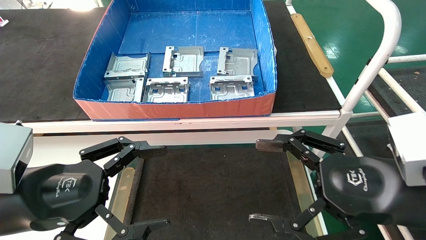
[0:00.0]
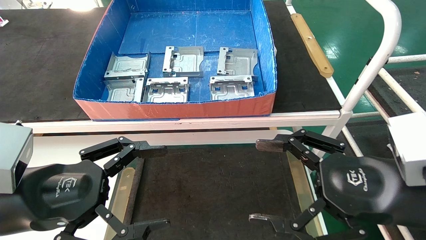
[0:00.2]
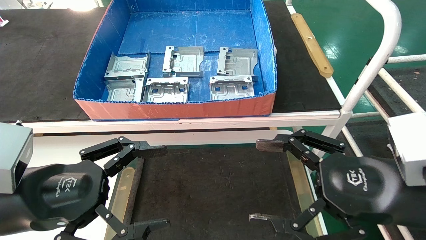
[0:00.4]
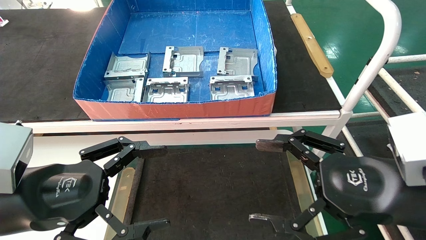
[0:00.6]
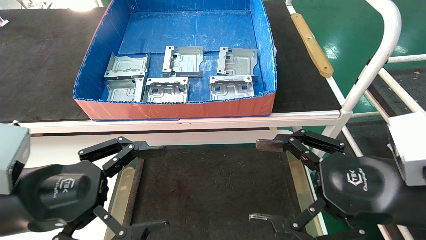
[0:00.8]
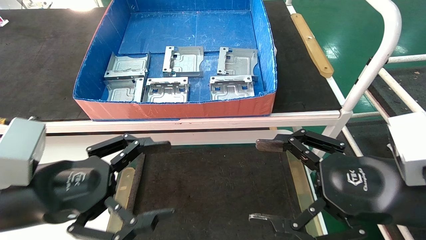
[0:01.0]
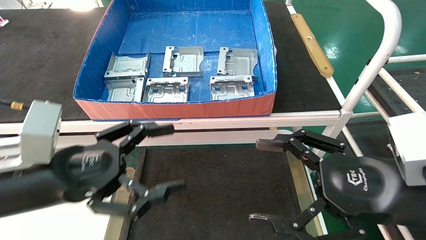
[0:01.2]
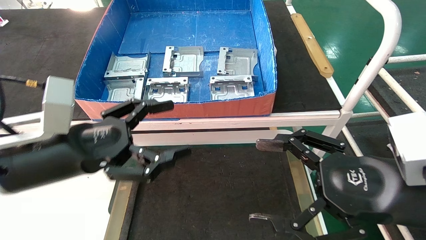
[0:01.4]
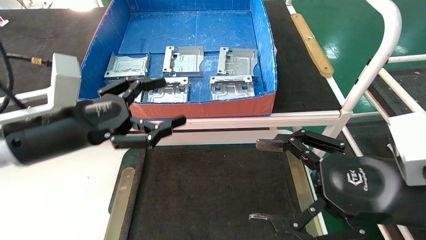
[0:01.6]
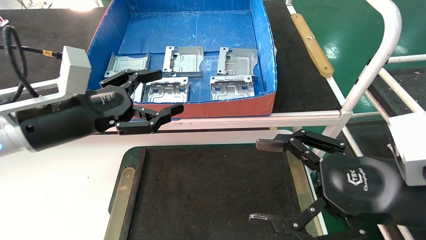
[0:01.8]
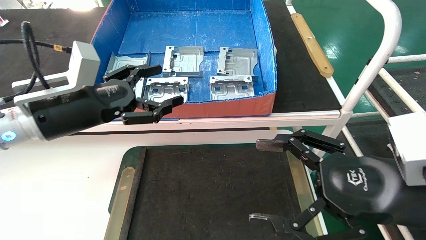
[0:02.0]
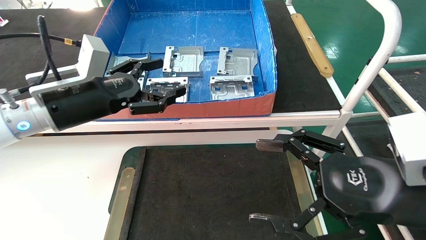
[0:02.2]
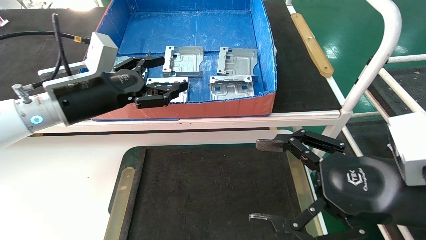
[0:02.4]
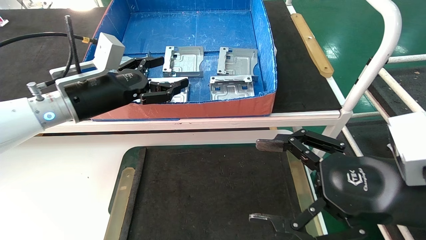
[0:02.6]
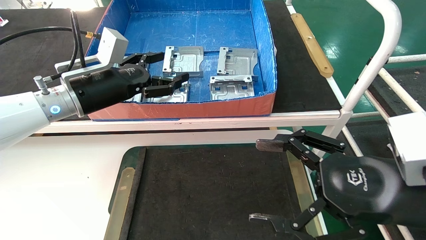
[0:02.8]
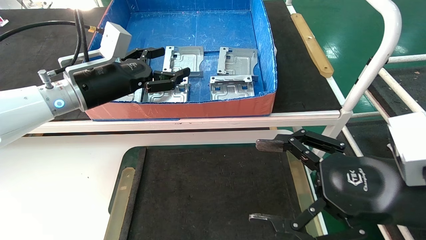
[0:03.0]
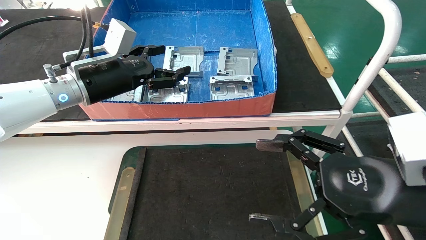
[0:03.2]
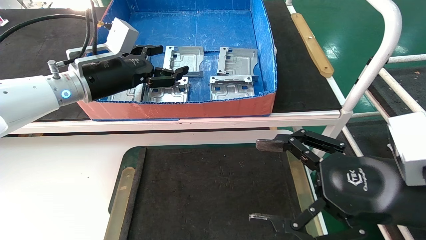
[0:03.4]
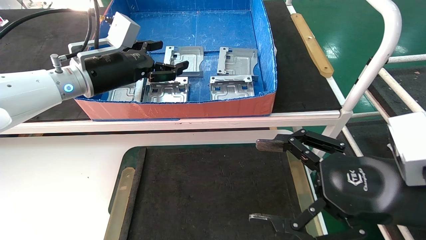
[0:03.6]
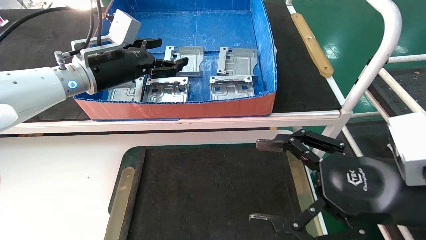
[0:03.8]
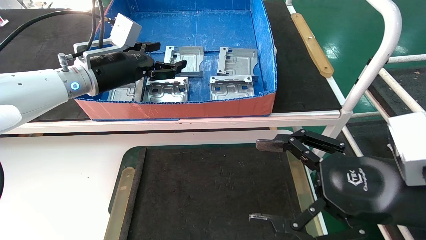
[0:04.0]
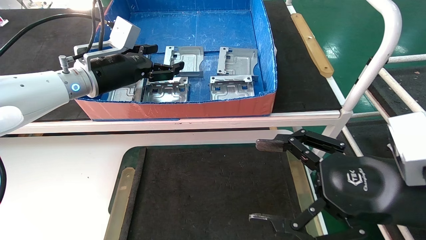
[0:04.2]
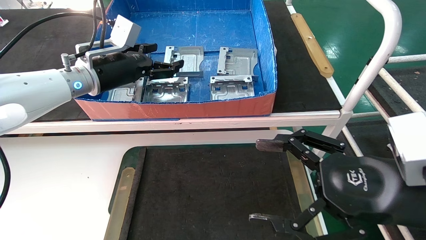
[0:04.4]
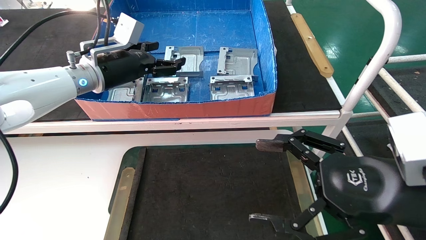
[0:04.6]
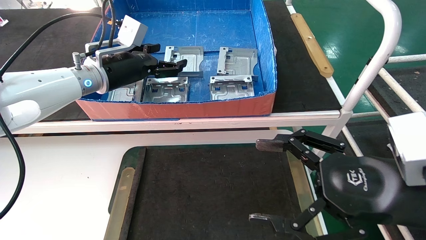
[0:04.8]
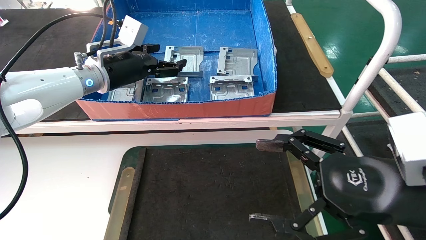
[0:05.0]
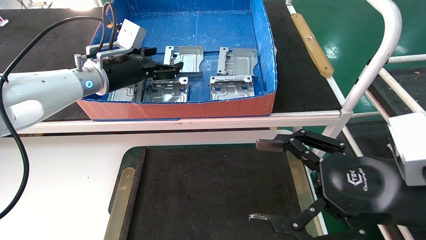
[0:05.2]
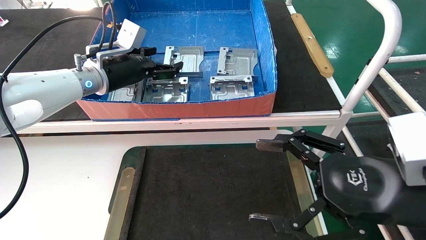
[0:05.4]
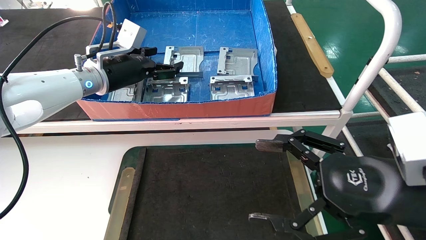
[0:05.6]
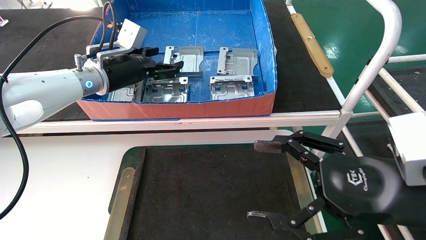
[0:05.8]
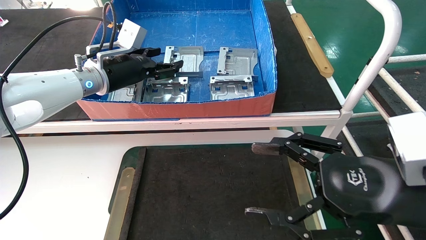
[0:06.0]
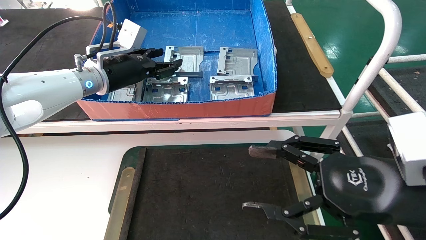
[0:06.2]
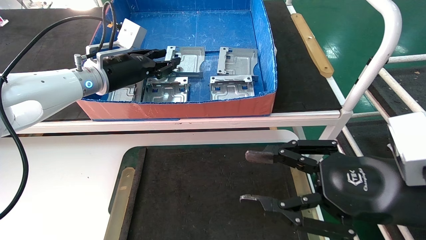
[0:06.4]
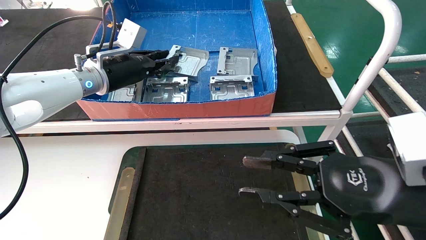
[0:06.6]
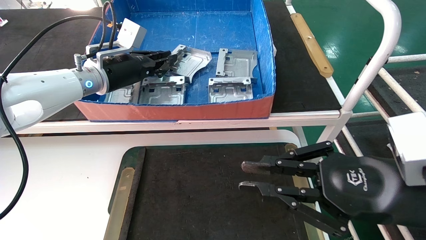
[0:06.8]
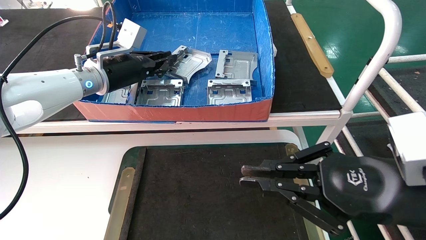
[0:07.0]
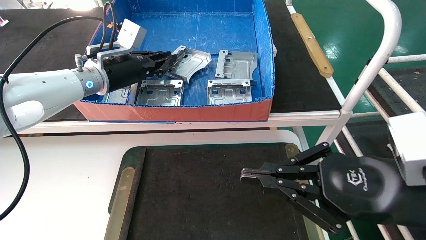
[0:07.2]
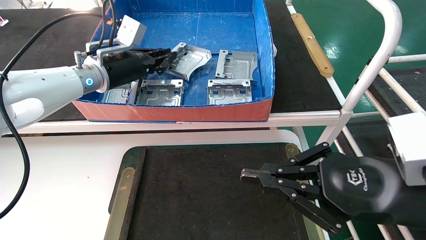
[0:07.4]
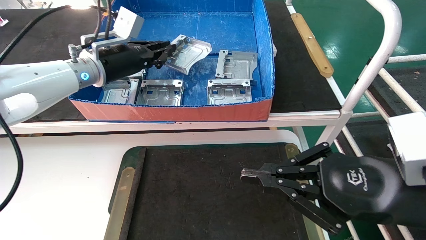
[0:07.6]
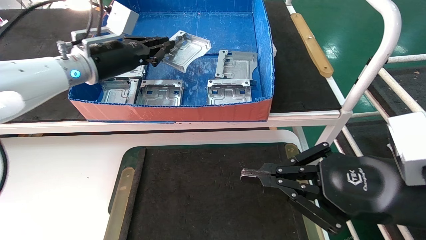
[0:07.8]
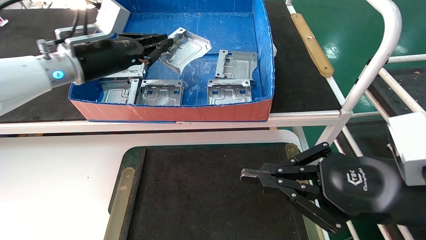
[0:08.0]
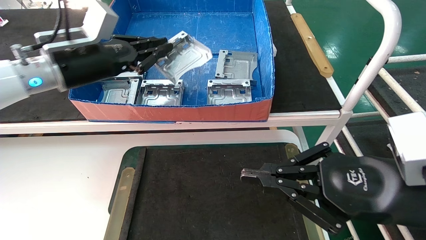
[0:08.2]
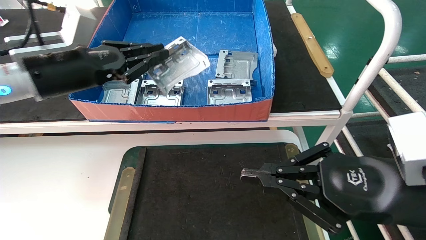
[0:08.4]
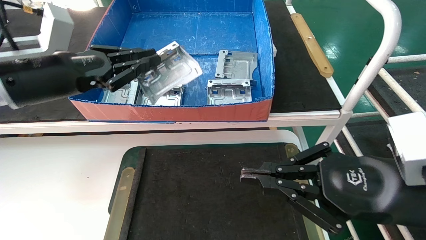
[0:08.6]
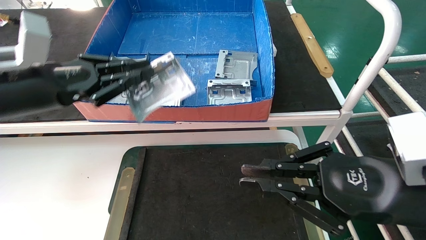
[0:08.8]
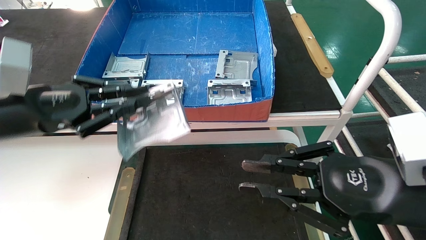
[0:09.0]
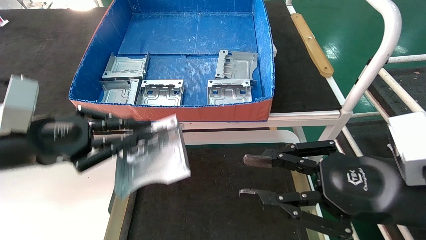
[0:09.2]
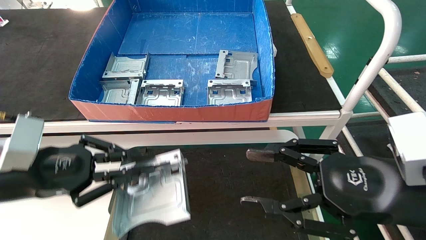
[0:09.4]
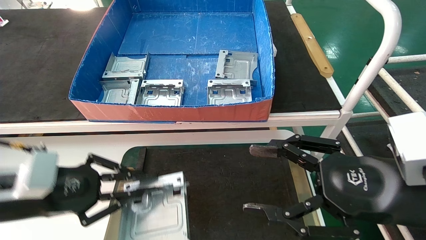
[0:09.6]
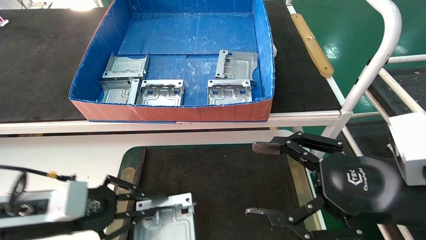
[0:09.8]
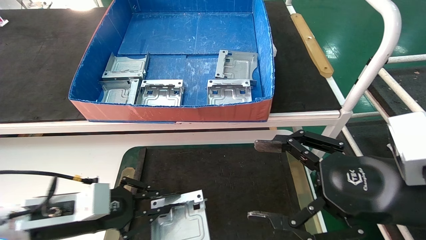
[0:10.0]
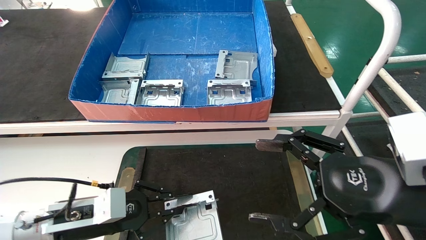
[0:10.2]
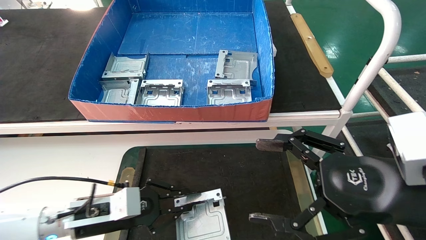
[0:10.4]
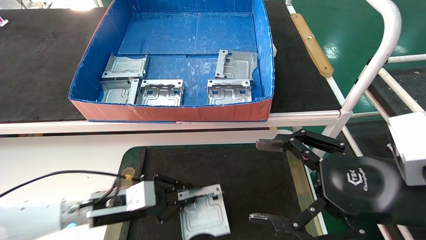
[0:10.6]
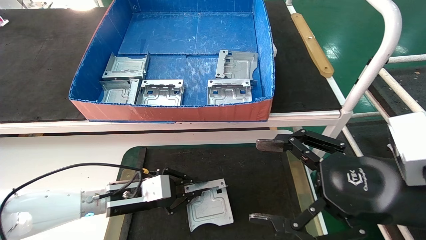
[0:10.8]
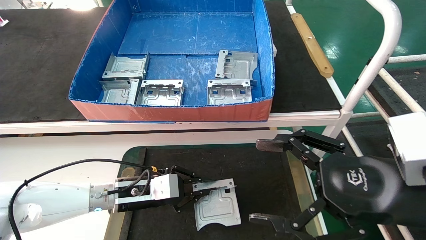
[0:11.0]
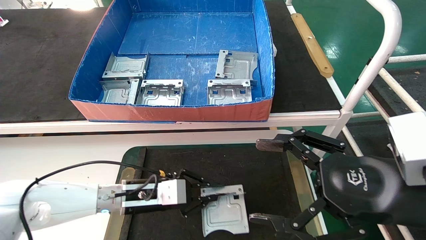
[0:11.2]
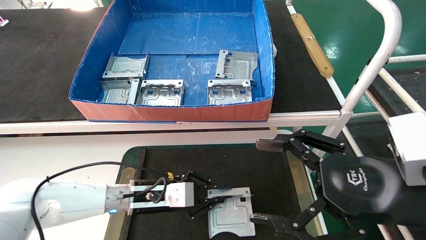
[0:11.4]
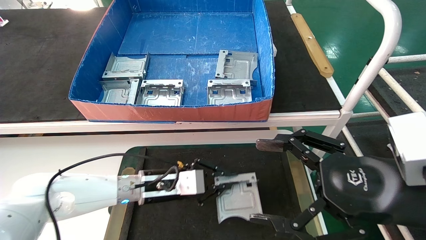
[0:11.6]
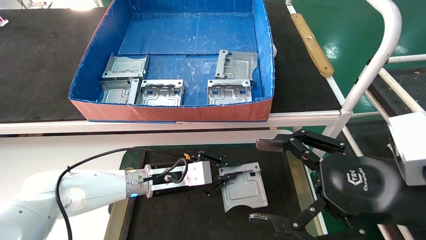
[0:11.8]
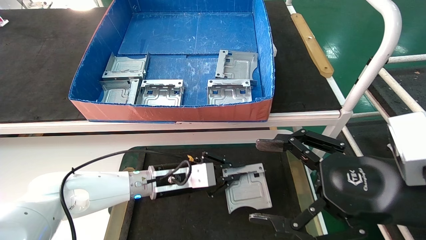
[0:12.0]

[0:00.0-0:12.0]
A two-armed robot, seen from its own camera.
Task of the whole recording: take the accessories out of the box and place them on the table.
Step, 0:01.4 to 0:07.0: Pick up the hard drive bracket from the feeding area.
0:00.0 to 0:01.6: The left gripper is displaced forward by approximately 10 cm.
0:01.6 to 0:03.0: The left gripper travels forward by approximately 10 cm.
0:03.0 to 0:04.4: The left gripper ends up approximately 5 cm from where it was.
0:04.4 to 0:06.0: There are only small adjustments of the grippers.
0:06.0 to 0:07.6: The left gripper closes its fingers. Meanwhile the right gripper closes up.
0:07.6 to 0:09.0: The left gripper shifts about 20 cm backward and to the left.
0:09.0 to 0:10.4: The left gripper heads downward, covering approximately 20 cm. The right gripper opens.
0:10.4 to 0:12.0: The left gripper moves to the right and forward, approximately 15 cm.

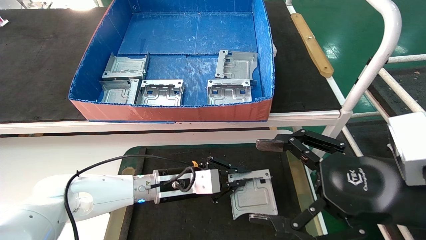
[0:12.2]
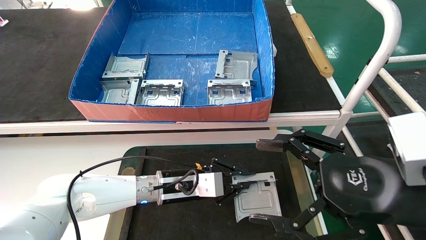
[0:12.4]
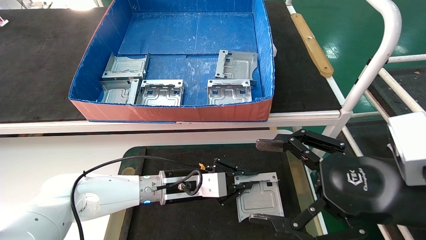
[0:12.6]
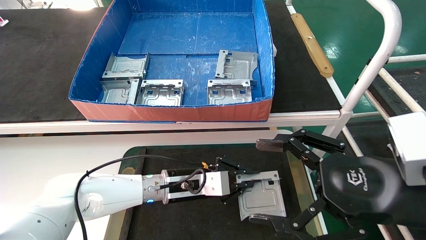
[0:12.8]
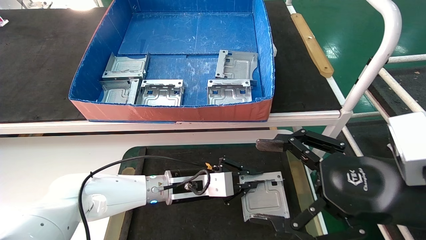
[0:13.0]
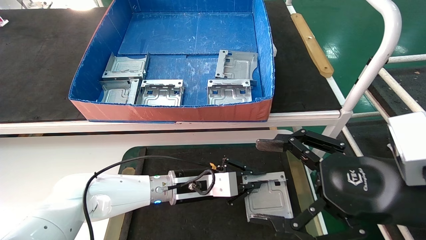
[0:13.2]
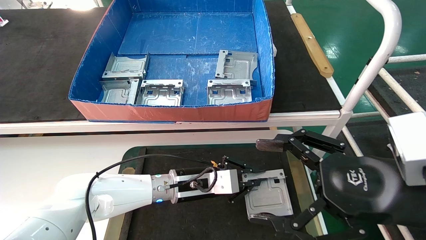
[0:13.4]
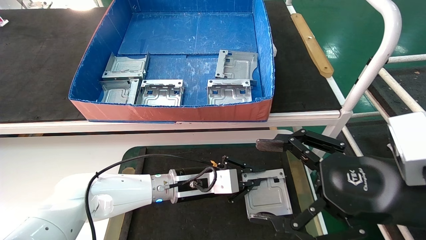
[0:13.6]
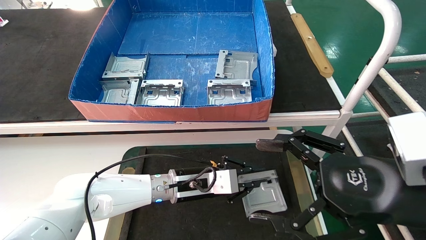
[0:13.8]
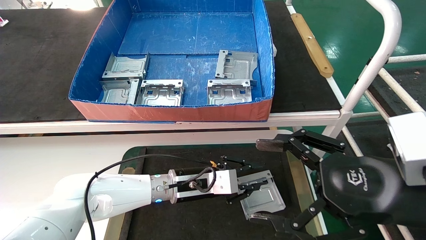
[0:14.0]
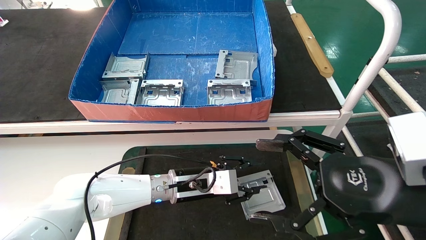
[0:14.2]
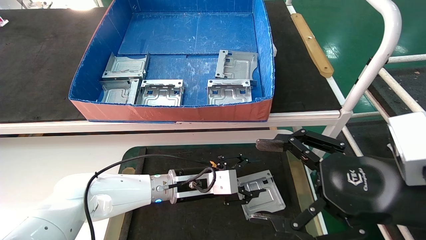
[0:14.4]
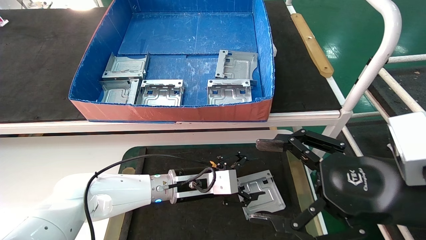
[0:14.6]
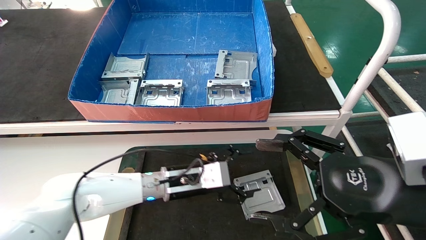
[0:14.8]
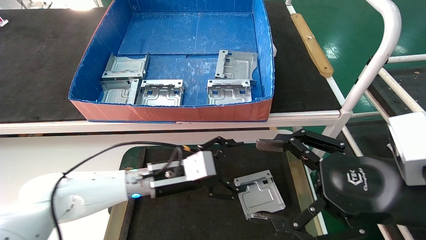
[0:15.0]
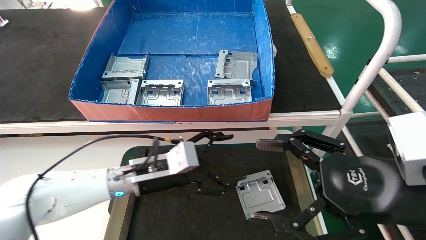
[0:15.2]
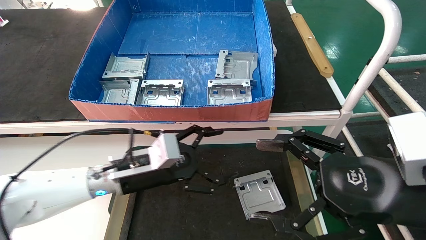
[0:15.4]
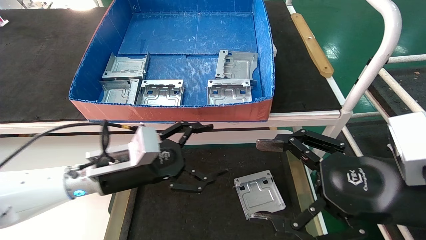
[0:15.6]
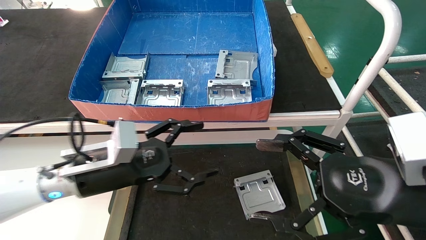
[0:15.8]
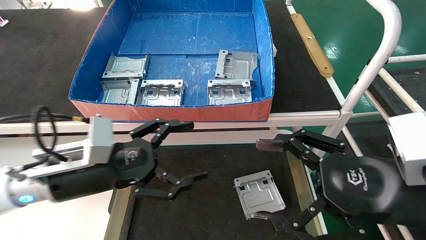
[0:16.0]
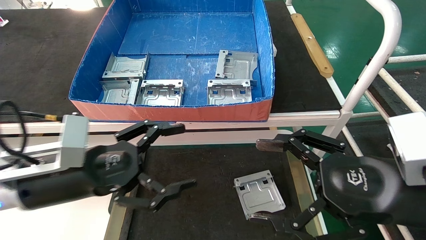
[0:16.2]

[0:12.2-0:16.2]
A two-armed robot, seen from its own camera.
Task of the whole recording: take the accessories out of the box and place them on the table.
Step, 0:12.2 to 0:14.2: Place the hard drive bracket into the box.
0:12.2 to 0:13.6: The grippers make only small movements.
0:13.6 to 0:14.8: The left gripper opens up.
0:14.8 to 0:16.2: The left gripper heads to the left, backward and upward, covering approximately 20 cm.
